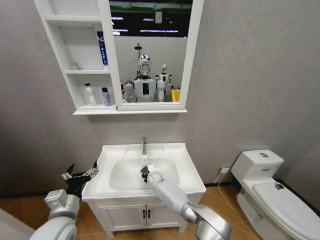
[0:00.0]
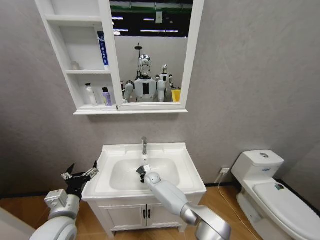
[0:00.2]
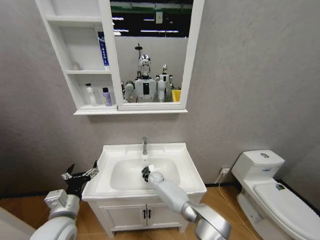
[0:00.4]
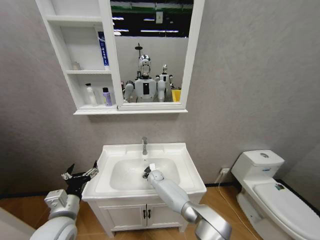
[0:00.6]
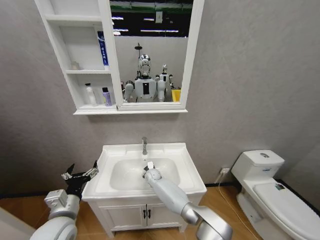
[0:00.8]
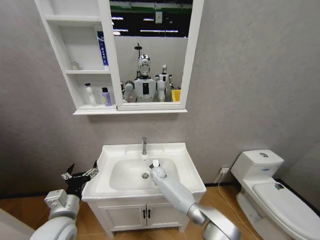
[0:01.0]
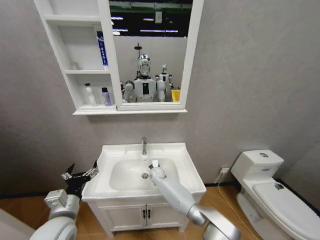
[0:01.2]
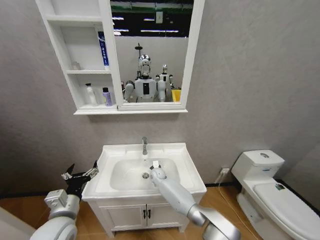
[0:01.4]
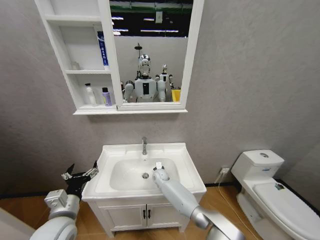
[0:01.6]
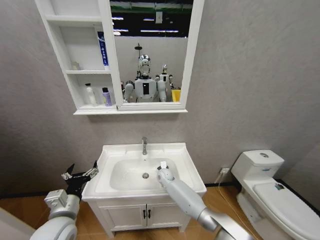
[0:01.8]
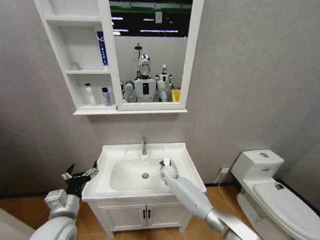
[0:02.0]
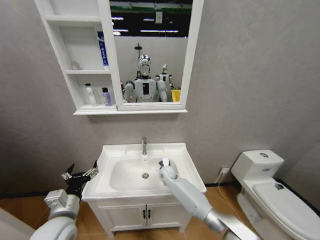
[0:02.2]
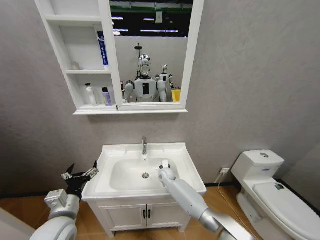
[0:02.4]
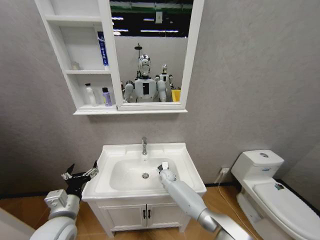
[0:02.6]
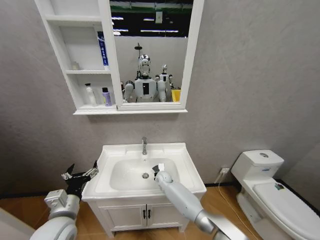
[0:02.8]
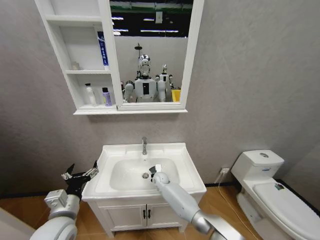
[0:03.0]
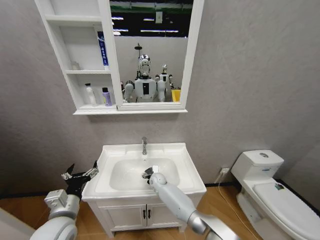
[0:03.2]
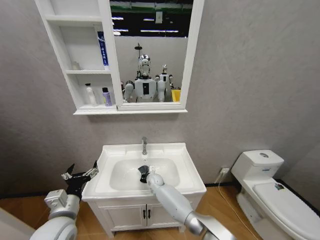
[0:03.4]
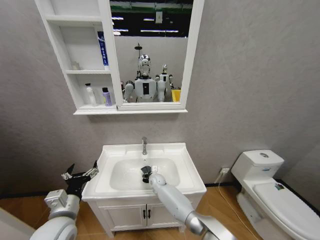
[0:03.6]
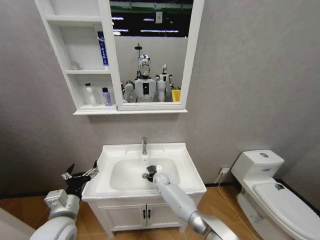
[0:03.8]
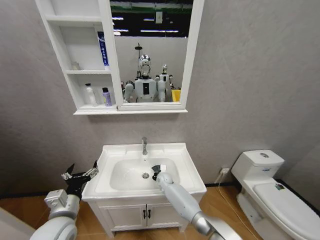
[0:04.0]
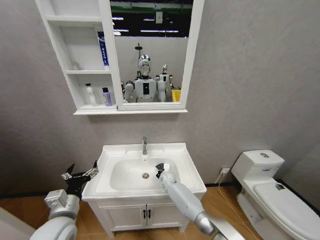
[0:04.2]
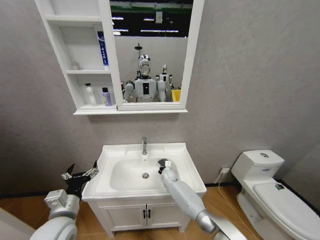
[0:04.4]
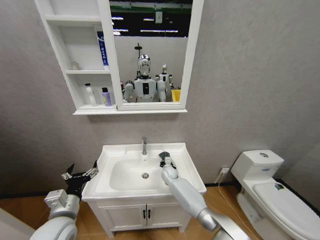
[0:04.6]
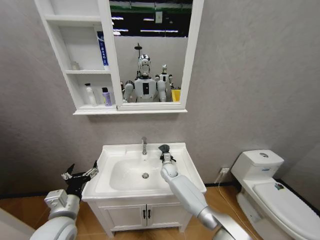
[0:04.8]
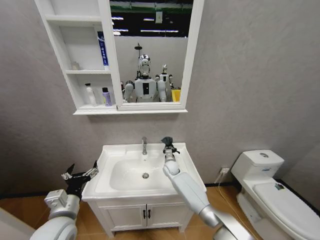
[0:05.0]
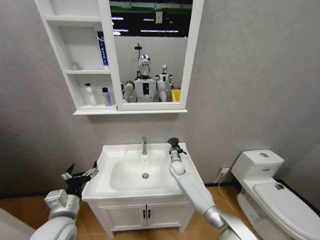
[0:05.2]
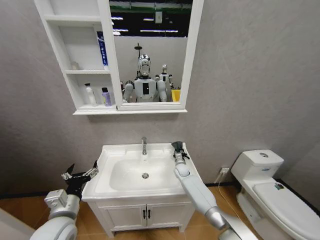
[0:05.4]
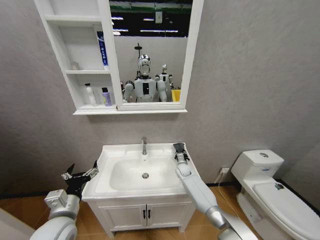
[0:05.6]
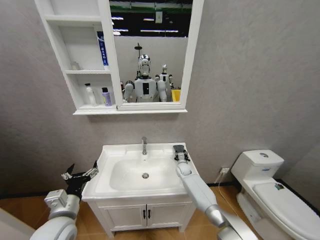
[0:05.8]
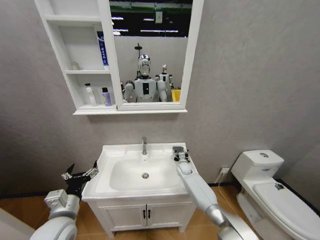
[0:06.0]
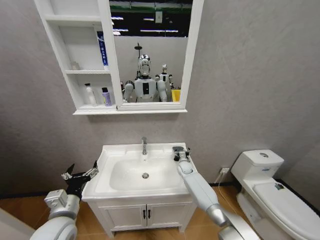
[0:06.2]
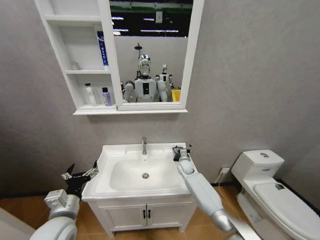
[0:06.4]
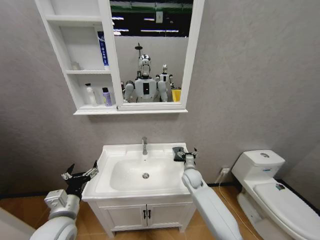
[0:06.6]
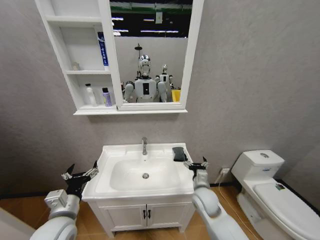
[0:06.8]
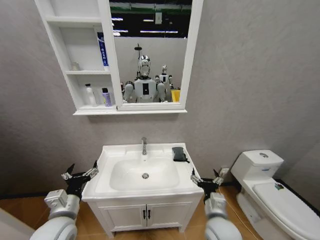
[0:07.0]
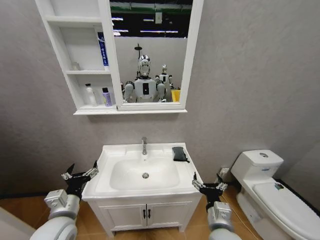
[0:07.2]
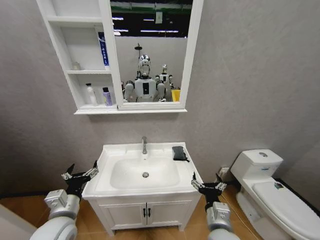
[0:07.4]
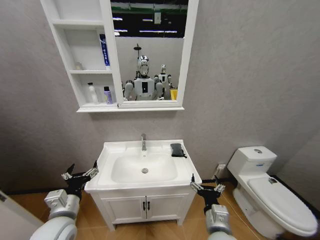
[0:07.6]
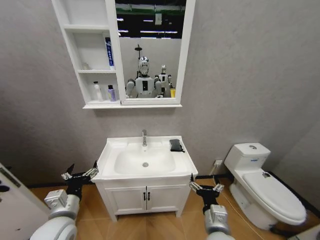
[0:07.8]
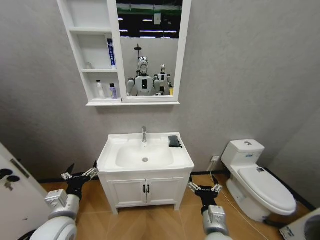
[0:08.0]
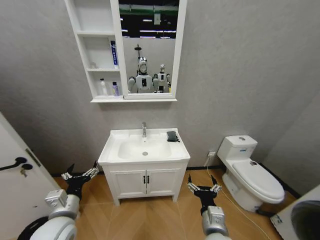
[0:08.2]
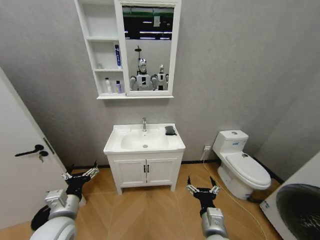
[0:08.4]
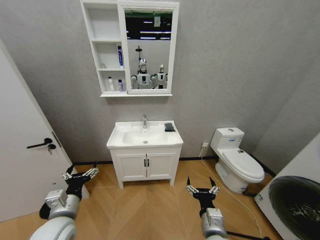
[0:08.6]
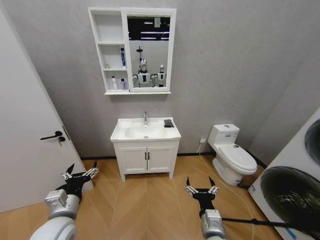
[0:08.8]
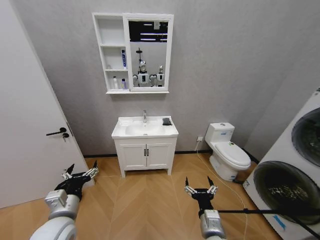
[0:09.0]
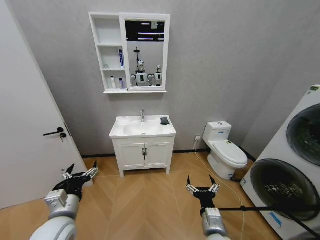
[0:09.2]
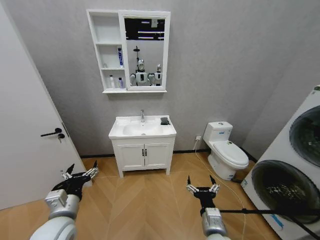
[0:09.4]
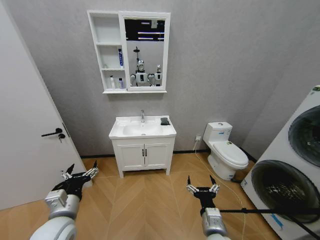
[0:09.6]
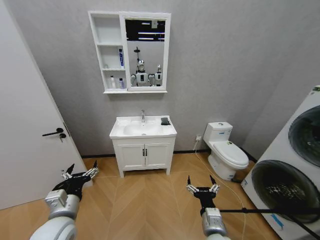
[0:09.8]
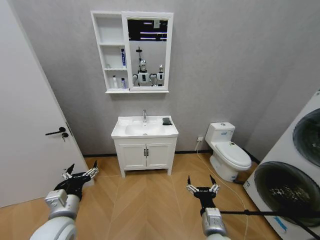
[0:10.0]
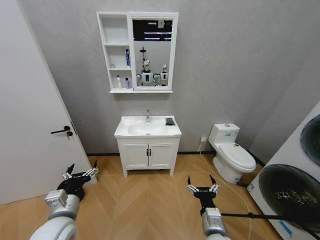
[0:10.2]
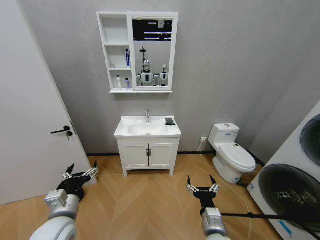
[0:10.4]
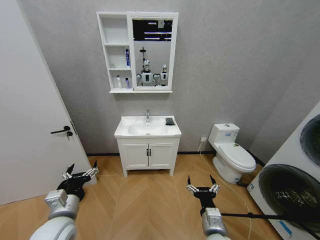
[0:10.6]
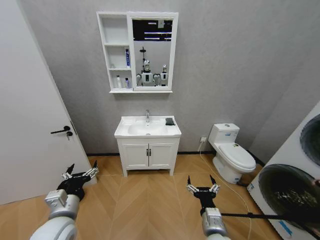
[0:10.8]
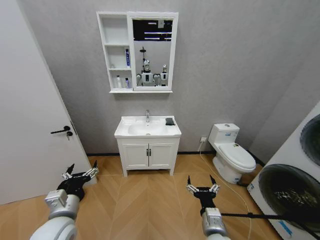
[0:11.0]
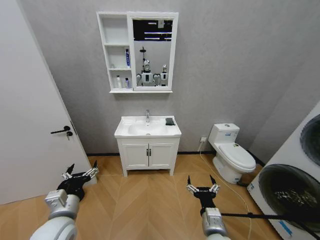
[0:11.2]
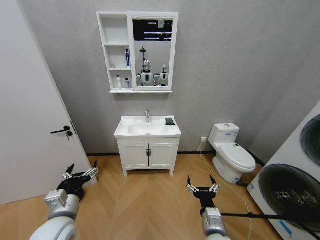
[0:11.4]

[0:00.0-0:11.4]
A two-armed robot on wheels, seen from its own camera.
Task of the whole recording: Move facial cleanser and shampoo from washbasin to cabinet, then wipe washbasin with towel.
0:00.0 to 0:01.4: The grippers stay close to where they were, moving slightly.
0:02.8 to 0:04.2: The grippers stay close to where they were, moving slightly.
0:04.2 to 0:05.6: The right gripper goes roughly 10 cm to the right, and opens its fingers.
0:05.6 to 0:07.2: The right gripper travels backward and upward by some 40 cm, and opens its fingers.
0:10.0 to 0:11.4: The two grippers keep their place.
